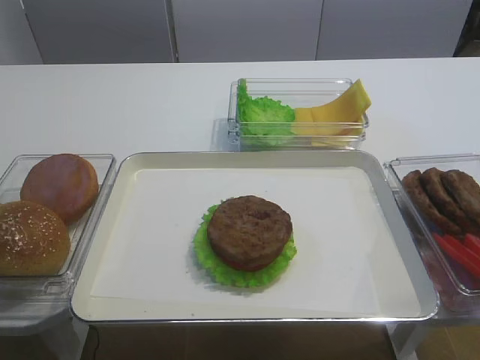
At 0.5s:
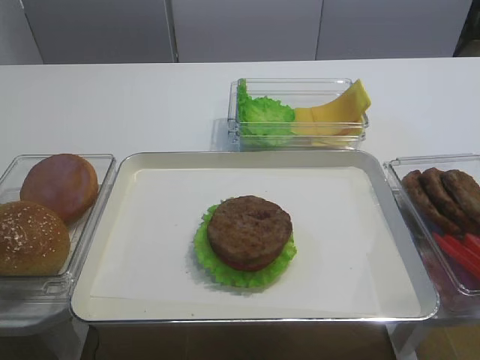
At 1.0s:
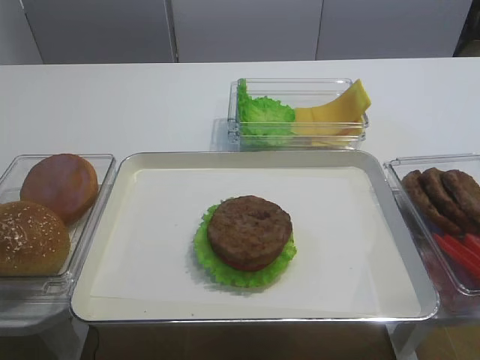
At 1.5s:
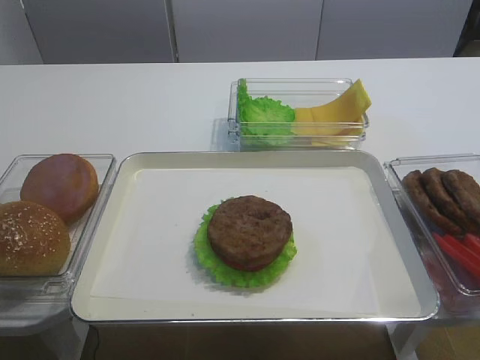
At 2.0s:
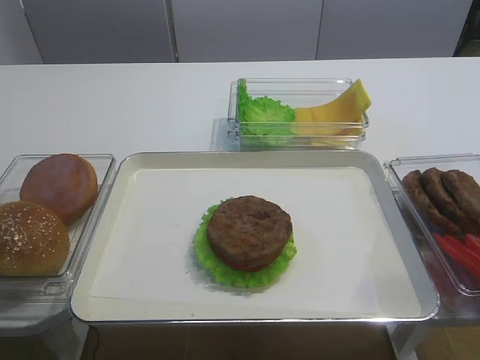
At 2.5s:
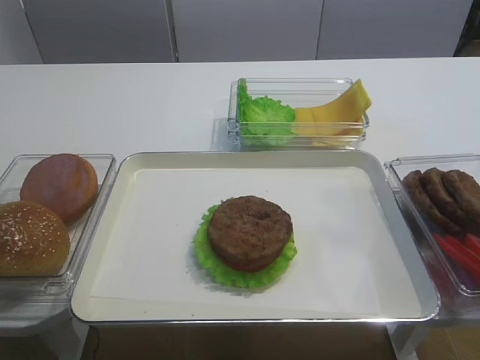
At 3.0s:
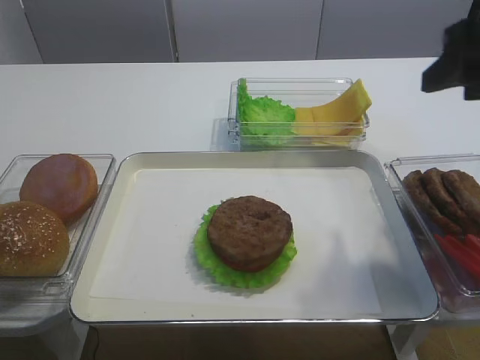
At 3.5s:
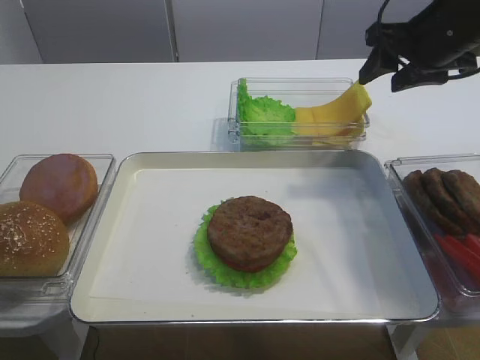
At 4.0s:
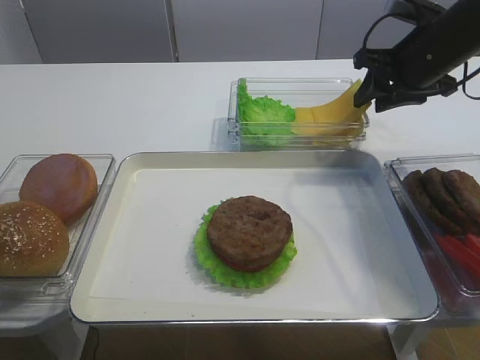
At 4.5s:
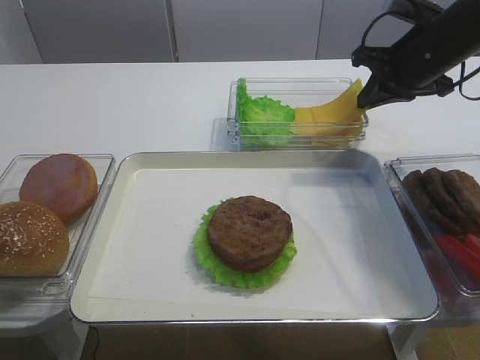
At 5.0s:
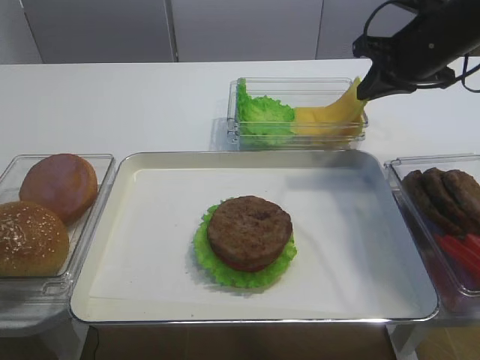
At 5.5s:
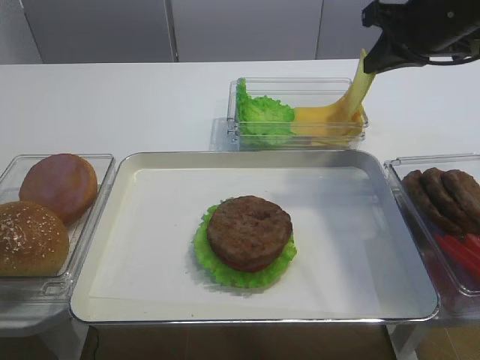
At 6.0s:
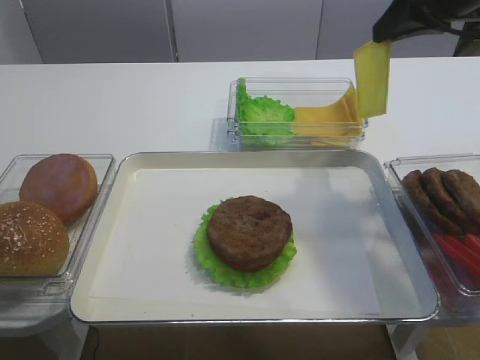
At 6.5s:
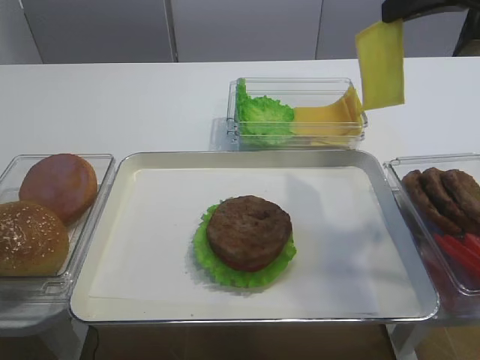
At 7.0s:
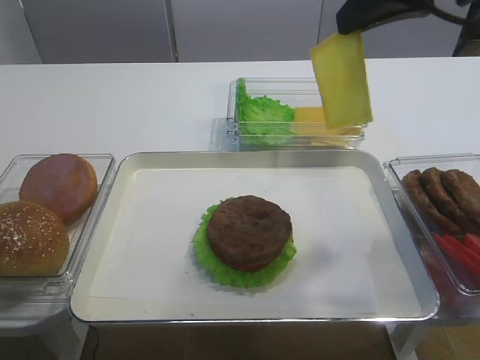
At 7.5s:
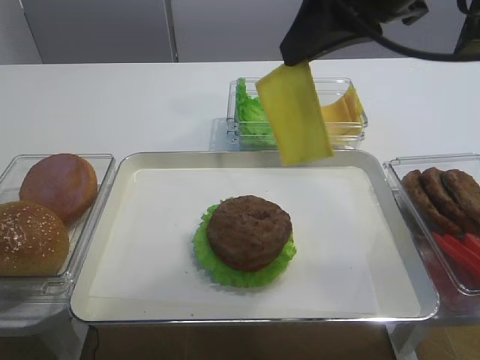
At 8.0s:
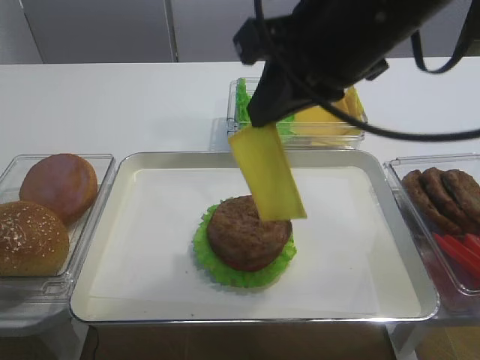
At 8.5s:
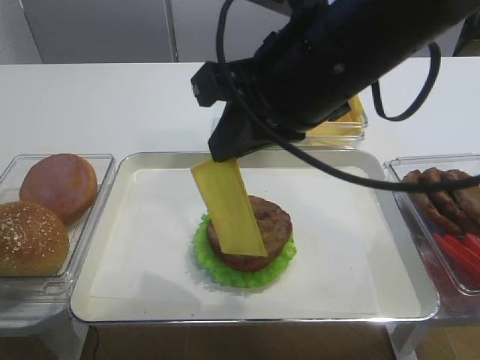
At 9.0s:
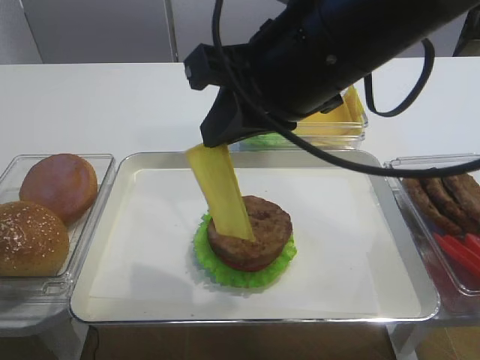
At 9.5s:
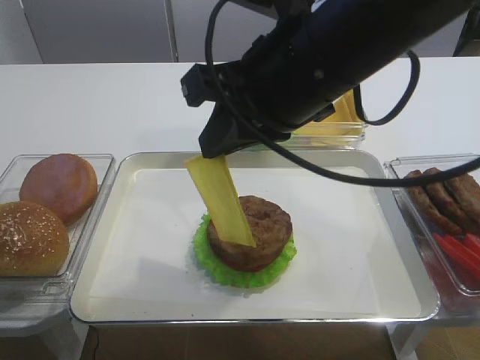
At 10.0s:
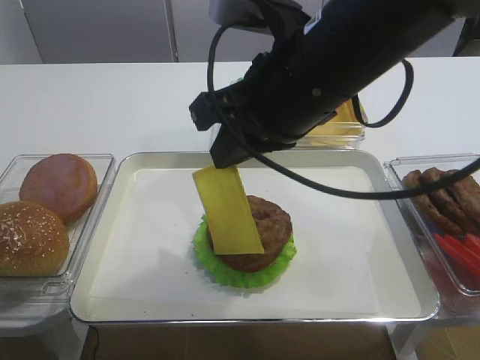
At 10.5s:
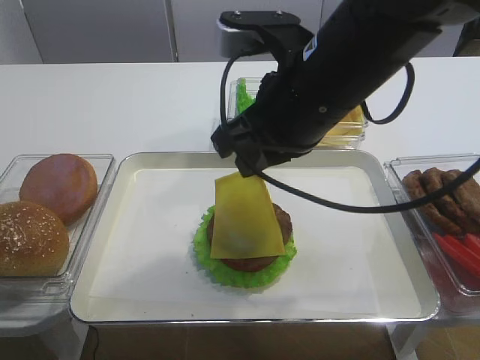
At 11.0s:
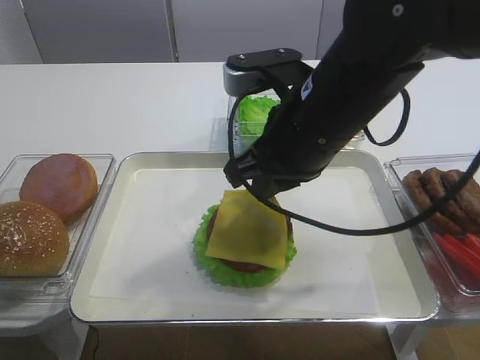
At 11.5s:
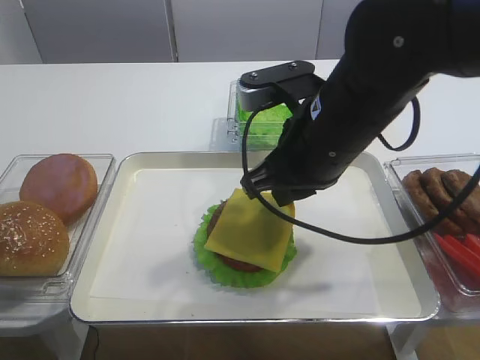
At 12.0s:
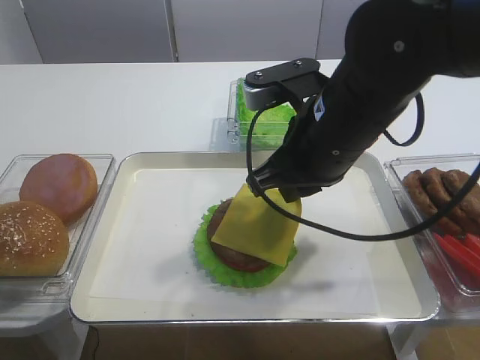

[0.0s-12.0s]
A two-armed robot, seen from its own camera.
Step, 0.0s to 6.5s: Pick up the cheese slice with the right gripper.
2.0s to 4.0s: The right gripper goes about 40 cm forward.
4.0s to 6.0s: The right gripper travels upward and backward by some 10 cm, and closes its fingers.
6.0s to 8.0s: The right gripper moves to the left and backward, some 20 cm.
8.0s to 10.0s: The grippers move only a little.
10.0s to 12.0s: The right gripper heads downward, covering some 5 cm.

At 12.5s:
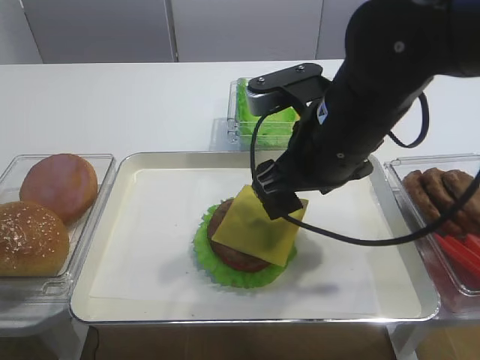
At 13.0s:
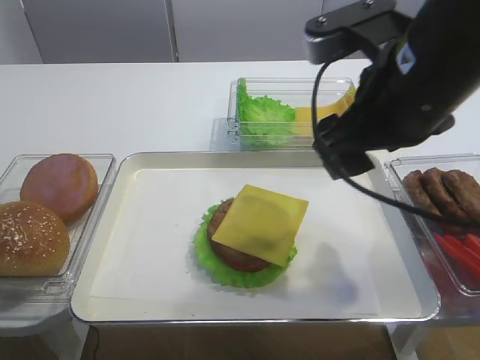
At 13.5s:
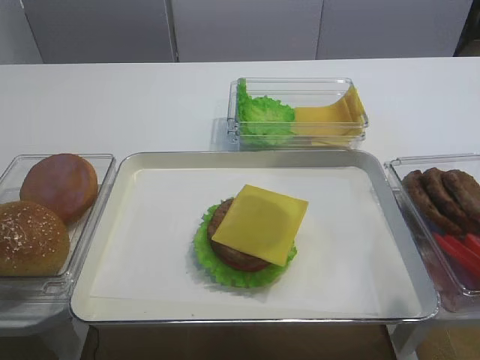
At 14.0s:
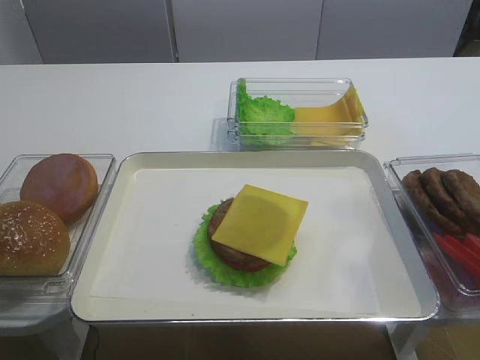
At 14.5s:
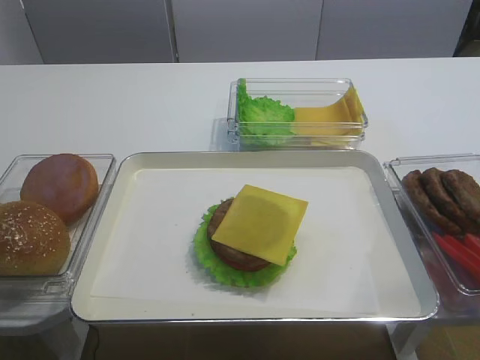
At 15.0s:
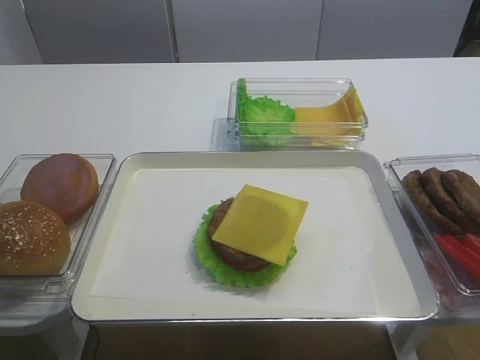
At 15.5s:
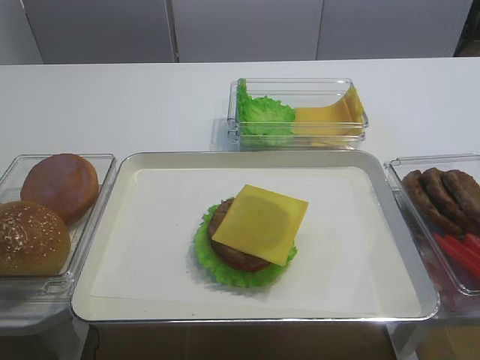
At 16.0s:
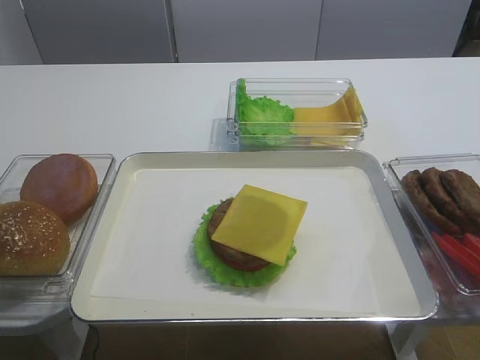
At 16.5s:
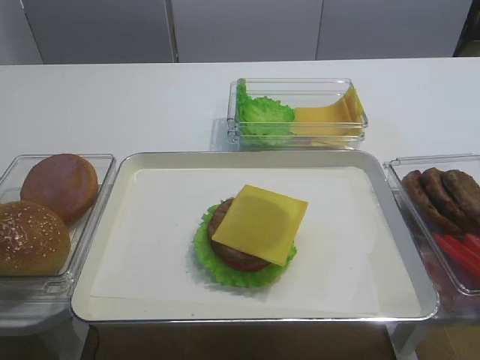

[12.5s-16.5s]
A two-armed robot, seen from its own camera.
12.5s to 14.5s: The right gripper shifts about 35 cm backward and to the right, and closes its fingers.

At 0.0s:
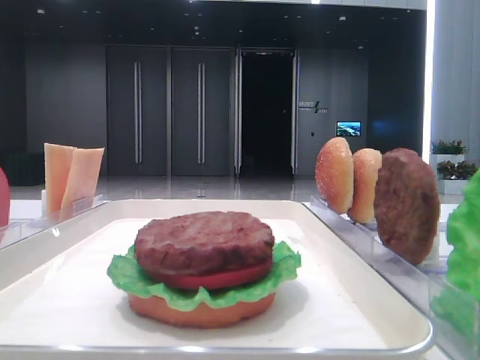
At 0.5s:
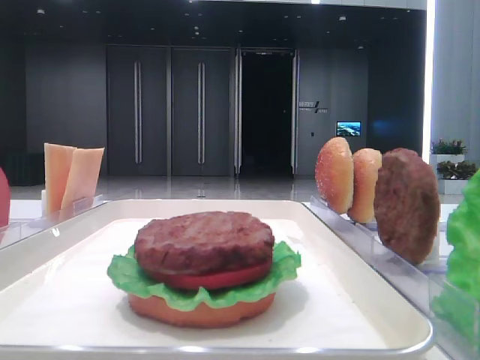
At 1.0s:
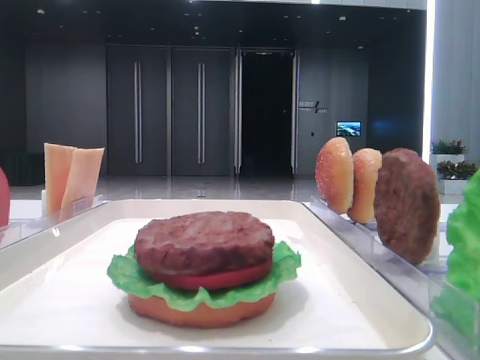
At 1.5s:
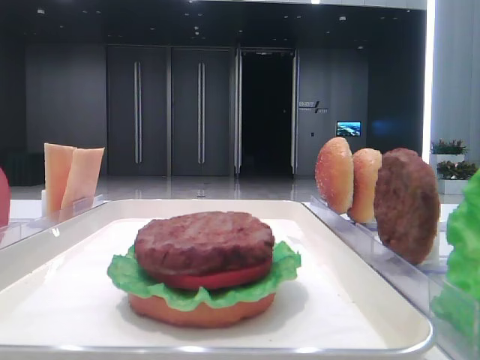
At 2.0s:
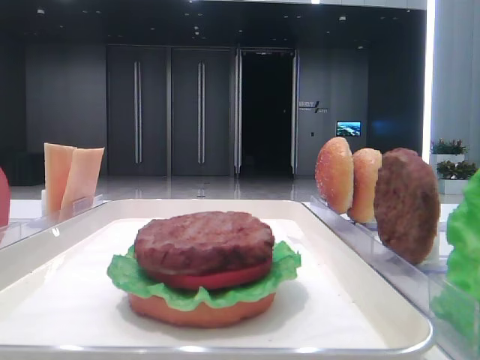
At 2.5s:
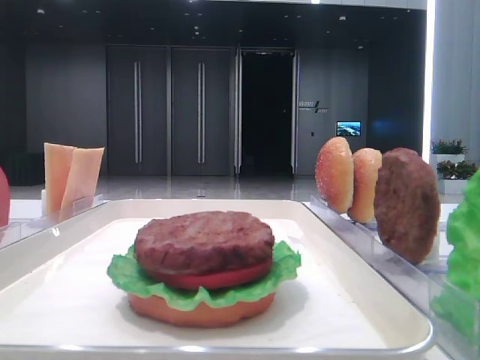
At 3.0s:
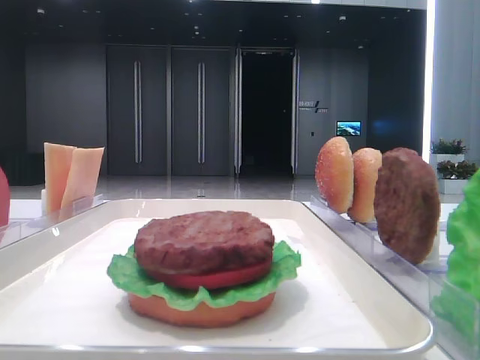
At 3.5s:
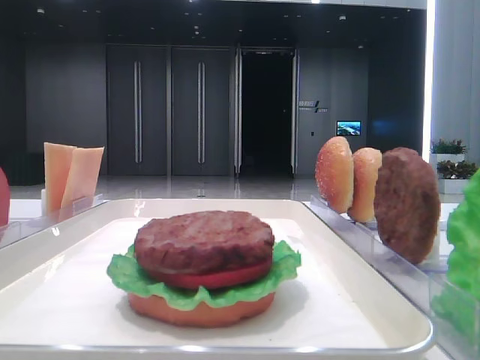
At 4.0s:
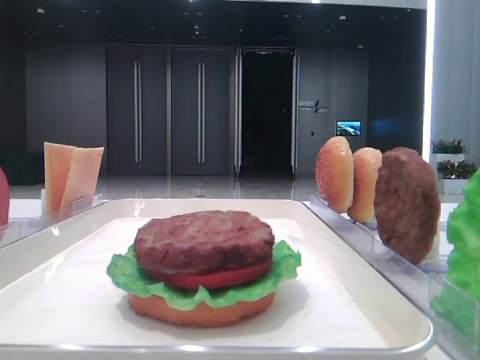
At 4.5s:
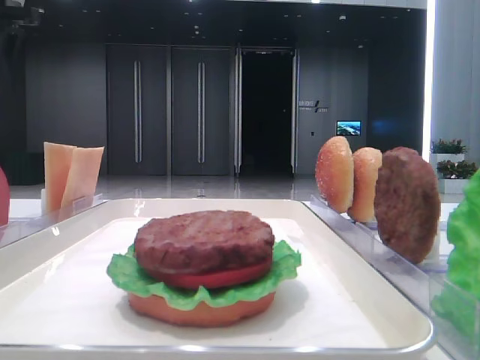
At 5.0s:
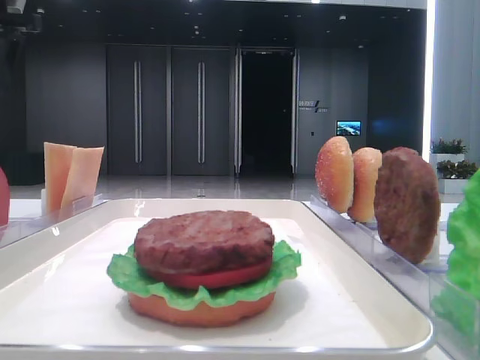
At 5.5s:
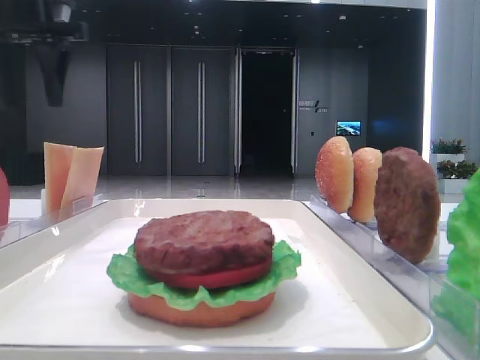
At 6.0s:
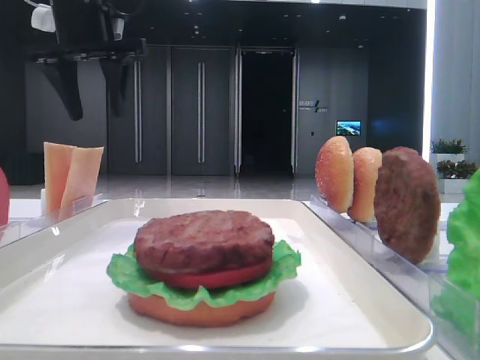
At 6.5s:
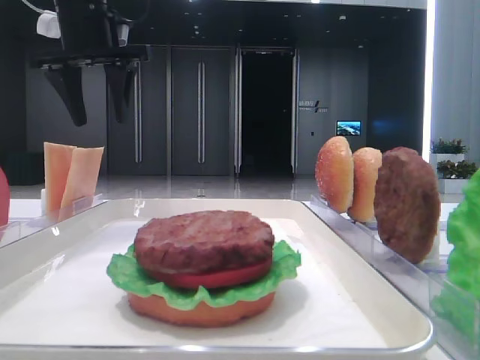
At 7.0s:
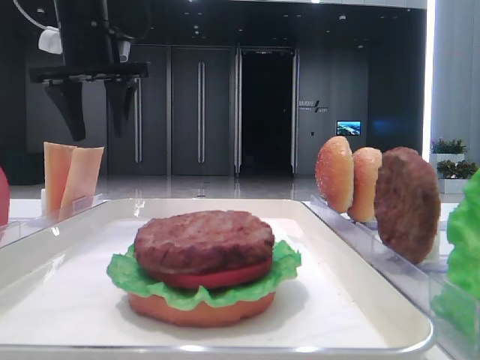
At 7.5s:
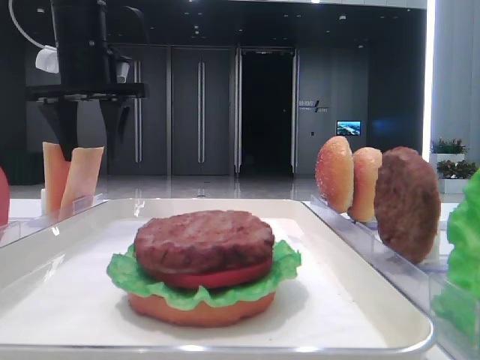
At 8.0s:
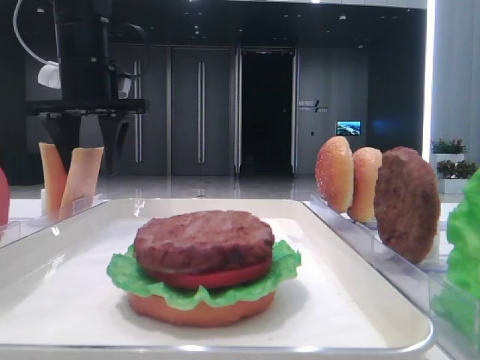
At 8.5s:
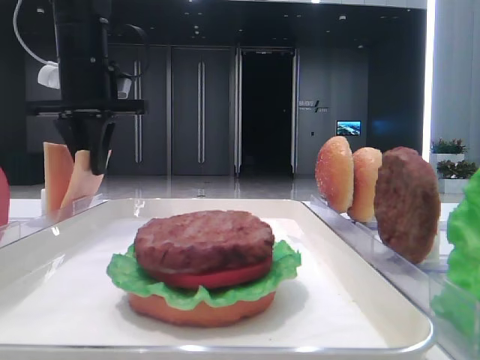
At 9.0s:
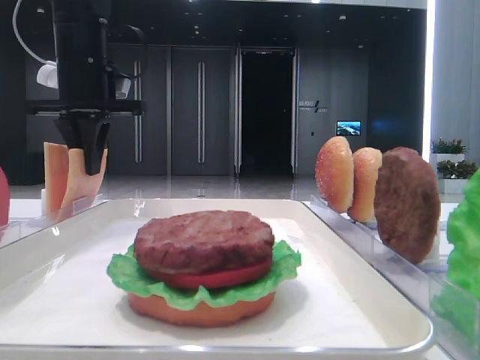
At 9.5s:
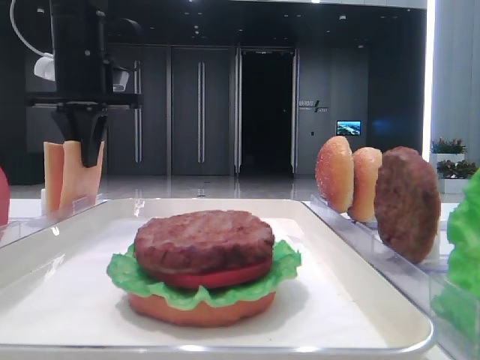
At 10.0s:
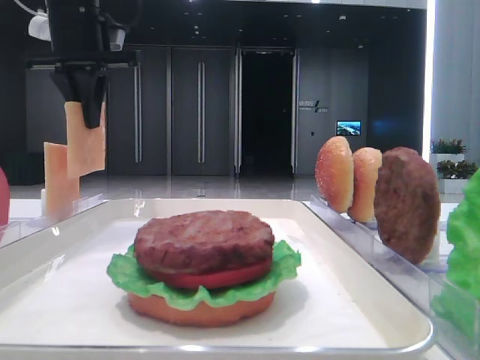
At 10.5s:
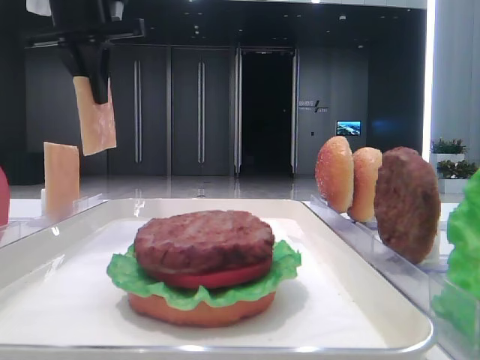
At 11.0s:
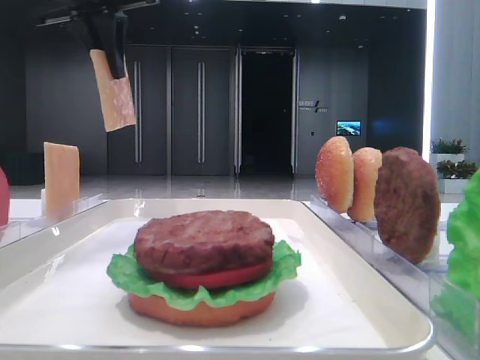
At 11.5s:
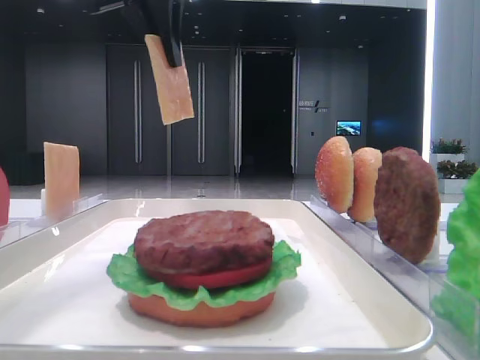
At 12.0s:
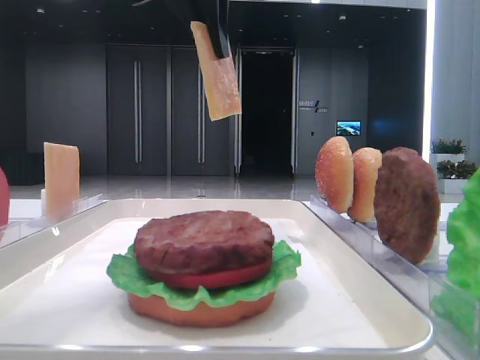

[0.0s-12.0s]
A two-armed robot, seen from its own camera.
Step, 0.0s to 8.5s: Pick up the cheese slice with the left hand.
2.0s to 4.0s: The left gripper travels forward by some 35 cm.
4.0s to 6.0s: The left gripper is displaced to the right, forward and downward by some 15 cm.
6.0s to 8.0s: The left gripper travels downward by some 5 cm.
8.0s to 10.0s: The left gripper heads upward, covering about 5 cm, and closes its fingers.
10.0s to 12.0s: The left gripper heads to the right, backward and upward, covering approximately 15 cm.
